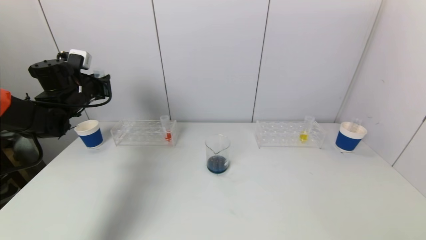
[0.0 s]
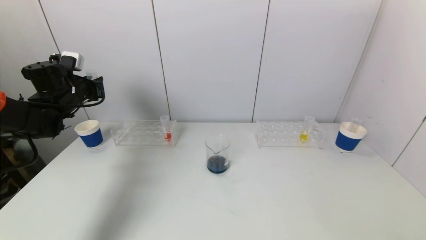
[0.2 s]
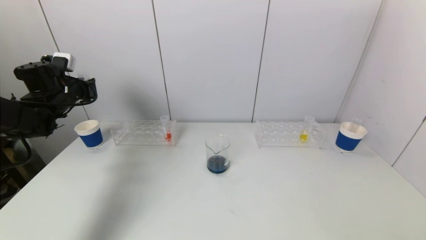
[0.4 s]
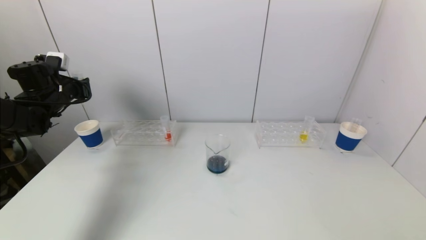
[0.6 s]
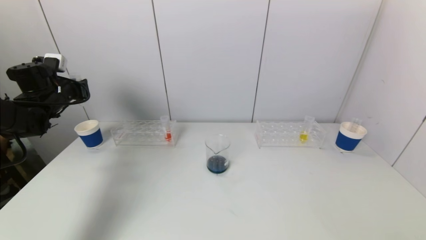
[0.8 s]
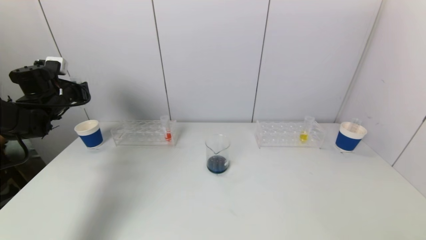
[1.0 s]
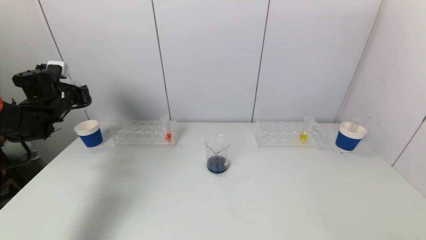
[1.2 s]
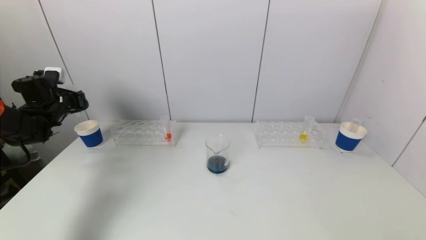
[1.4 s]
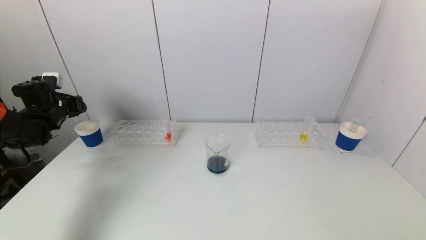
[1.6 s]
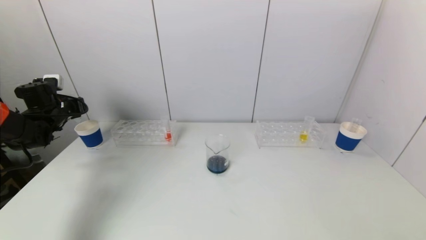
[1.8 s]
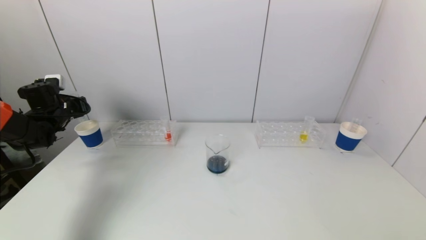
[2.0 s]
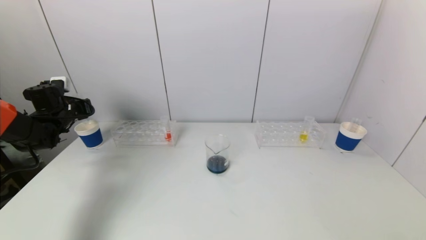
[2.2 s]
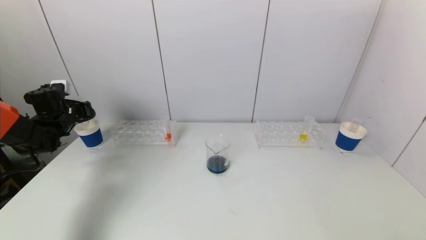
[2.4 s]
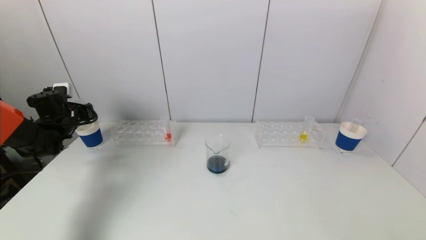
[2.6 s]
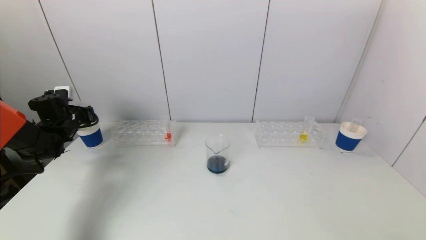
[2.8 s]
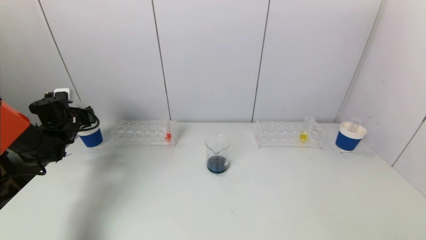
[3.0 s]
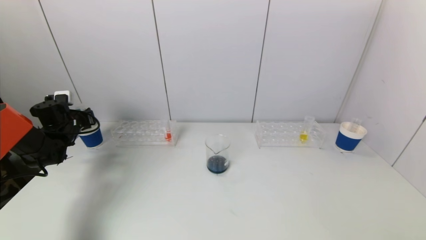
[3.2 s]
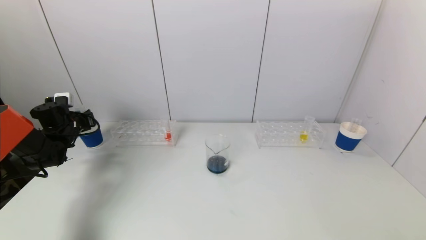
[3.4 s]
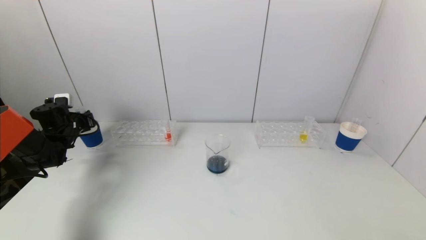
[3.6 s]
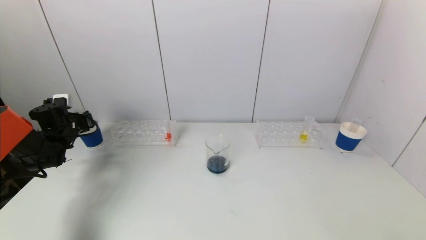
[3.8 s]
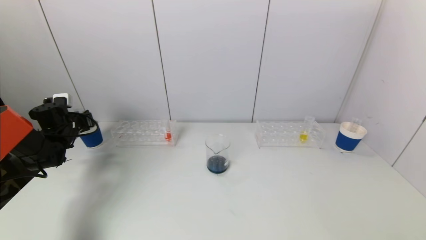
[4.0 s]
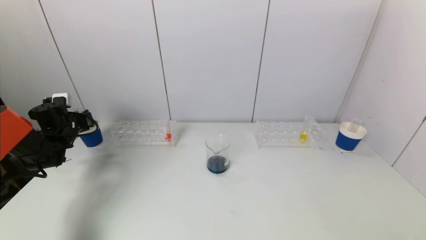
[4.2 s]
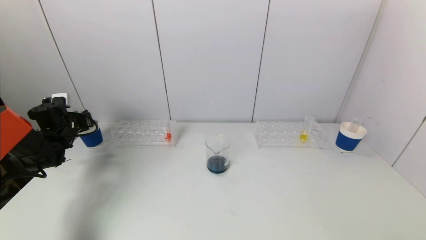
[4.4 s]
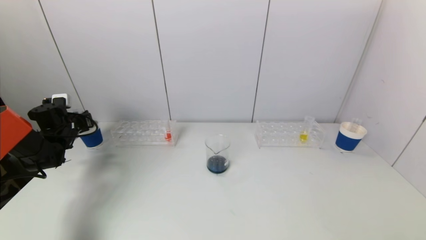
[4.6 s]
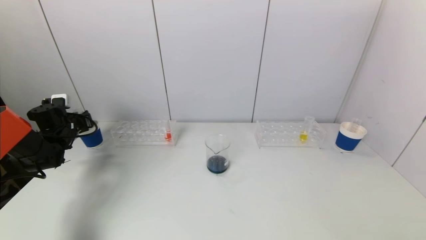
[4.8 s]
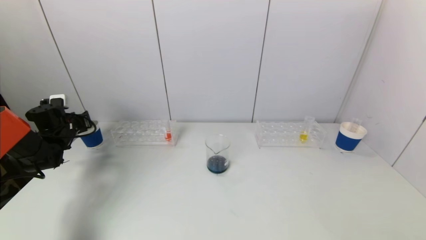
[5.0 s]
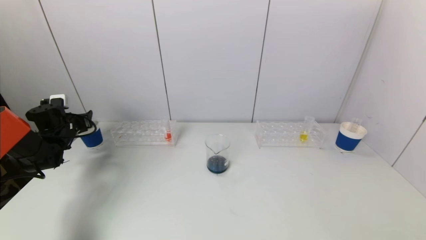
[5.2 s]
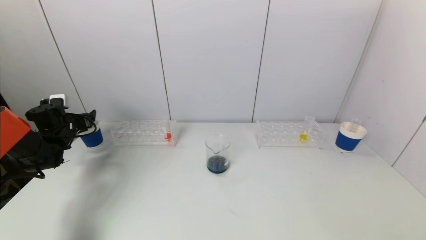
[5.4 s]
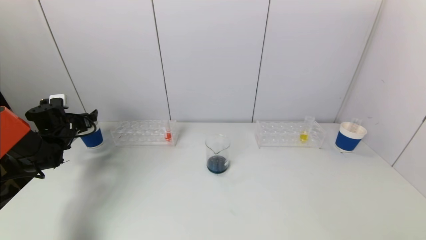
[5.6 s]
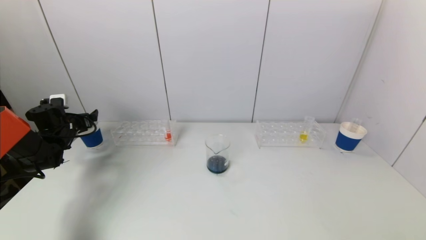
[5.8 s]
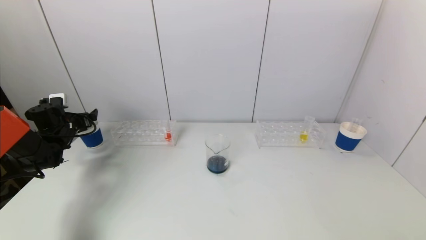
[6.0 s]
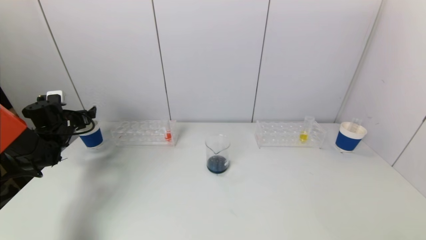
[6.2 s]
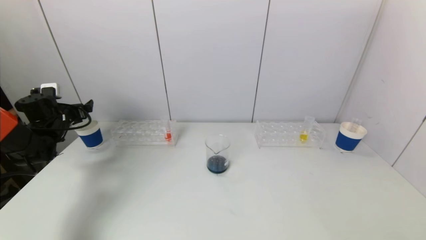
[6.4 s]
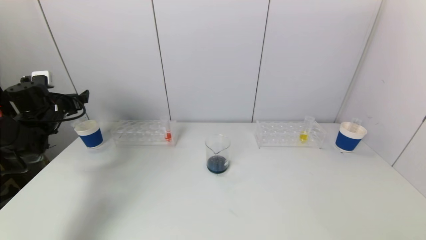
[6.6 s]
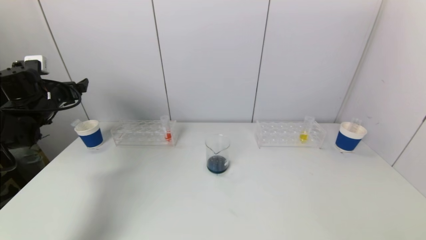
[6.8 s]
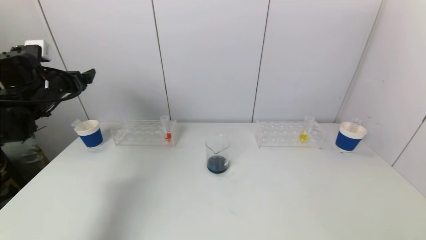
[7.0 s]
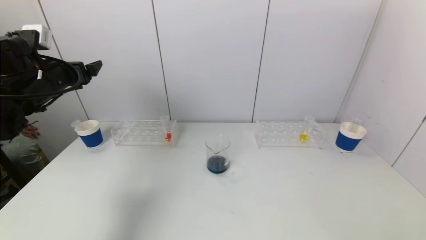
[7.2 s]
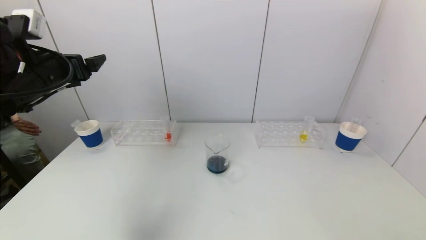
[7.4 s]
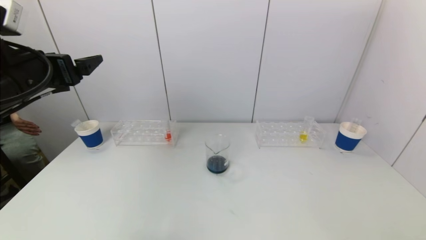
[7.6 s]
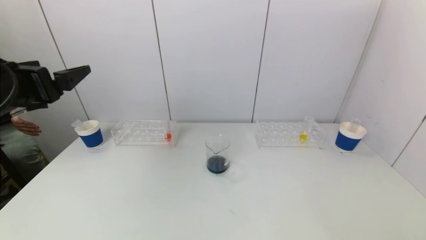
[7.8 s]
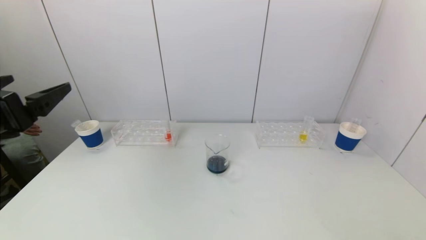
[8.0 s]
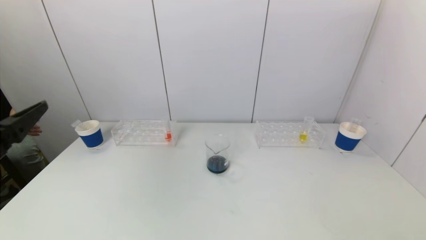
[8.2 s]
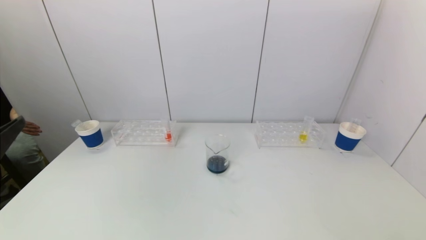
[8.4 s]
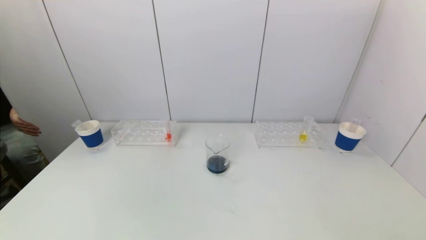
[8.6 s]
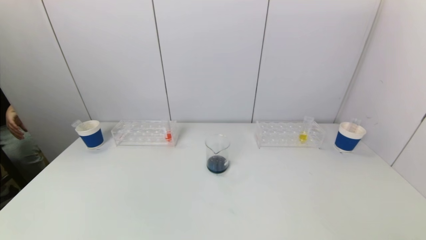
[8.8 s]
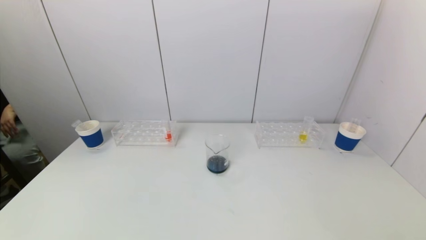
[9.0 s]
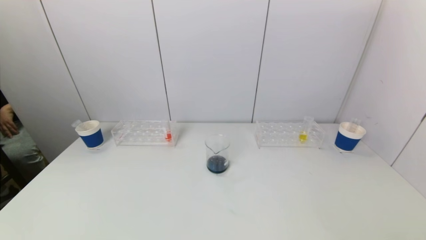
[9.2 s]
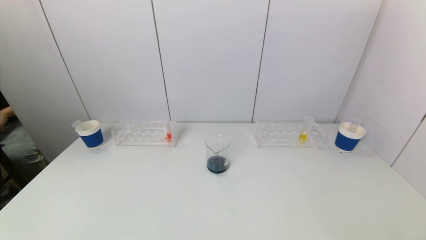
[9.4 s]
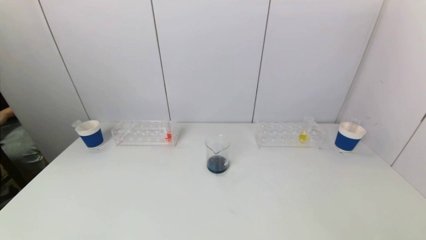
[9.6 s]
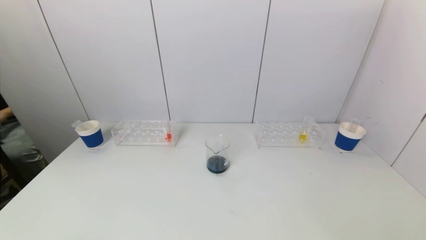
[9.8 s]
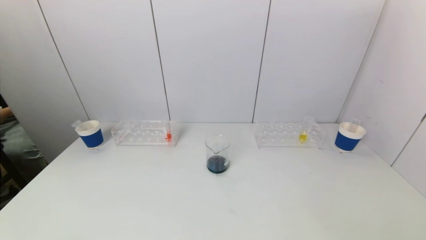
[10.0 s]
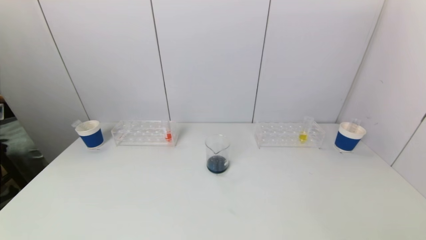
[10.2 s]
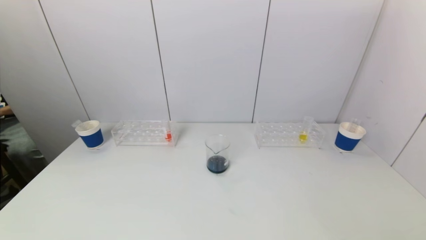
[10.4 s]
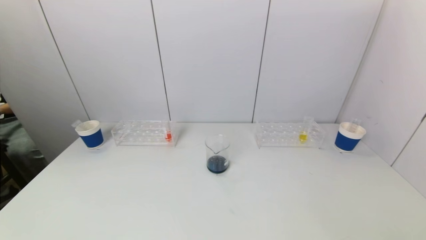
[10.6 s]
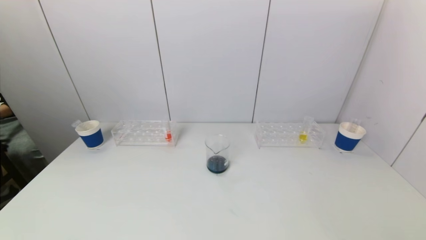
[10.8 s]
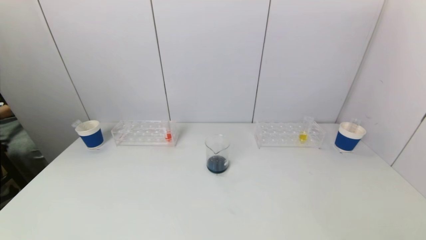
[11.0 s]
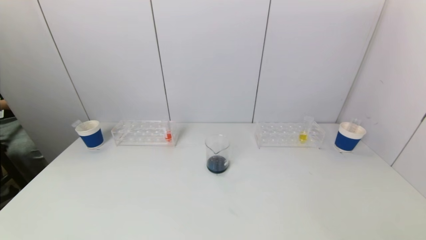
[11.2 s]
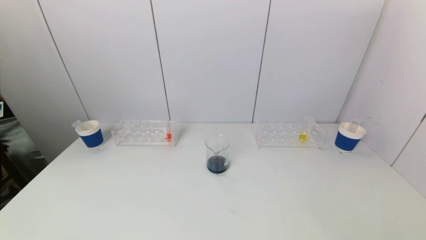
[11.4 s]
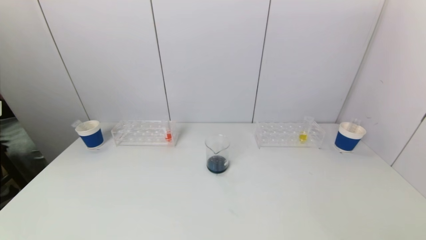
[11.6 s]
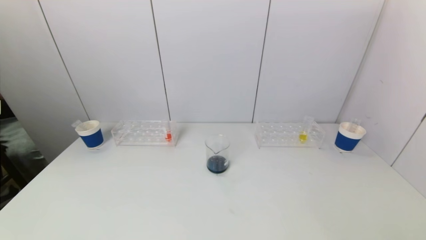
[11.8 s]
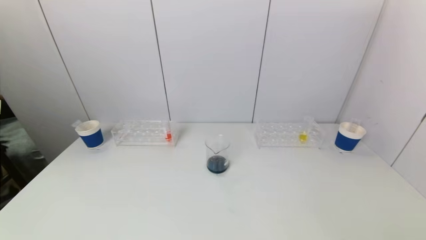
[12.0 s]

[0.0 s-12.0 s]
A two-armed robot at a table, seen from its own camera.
Task of the whole recording: pick up a test tube with pigment on left test tube rack and a test tube with pigment on right test tube rack by grippers and pour them into the beaker.
Step, 0.0 to 5.2 s: Place the test tube into the paper cup with the left gripper.
0.0 to 1.6 s: The left gripper is displaced to the left and downward by approximately 10 cm.
1.6 to 3.0 s: The left gripper changes place by about 5 cm.
3.0 to 4.4 s: The grippers make only small movements.
4.4 to 6.0 s: The left gripper opens.
6.0 to 7.6 s: The left gripper moves upward, backward and to the right, some 30 cm.
7.6 to 9.0 s: The left gripper travels backward by approximately 25 cm.
9.0 to 10.4 s: The left gripper moves downward, approximately 15 cm.

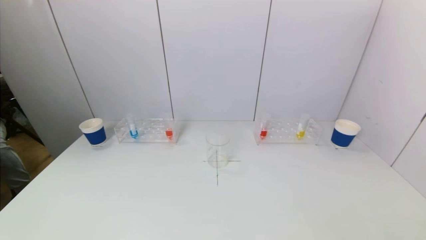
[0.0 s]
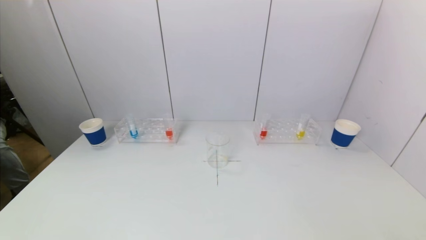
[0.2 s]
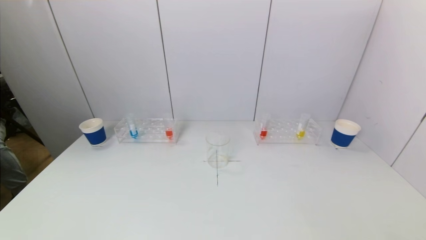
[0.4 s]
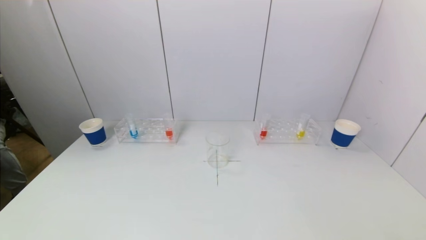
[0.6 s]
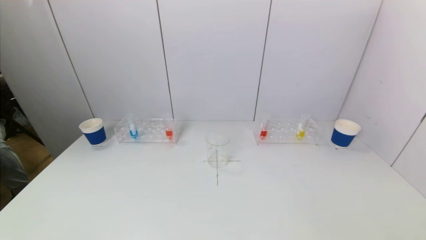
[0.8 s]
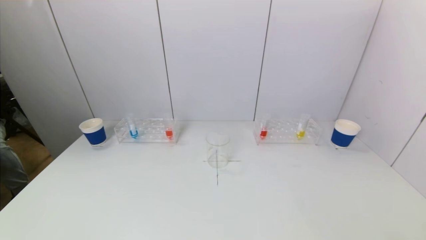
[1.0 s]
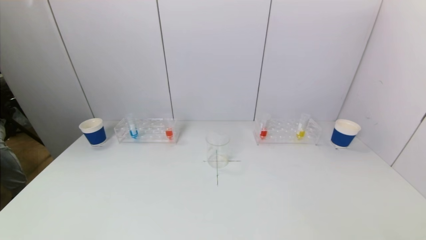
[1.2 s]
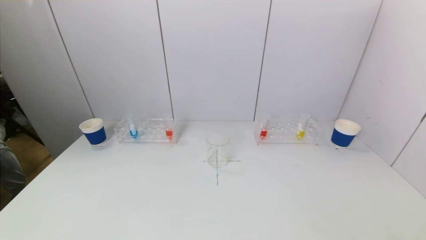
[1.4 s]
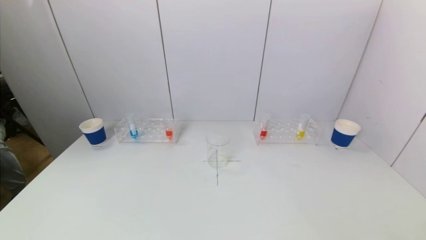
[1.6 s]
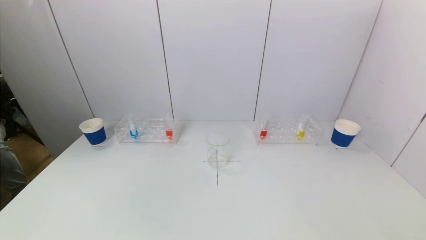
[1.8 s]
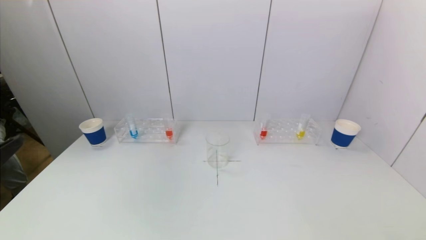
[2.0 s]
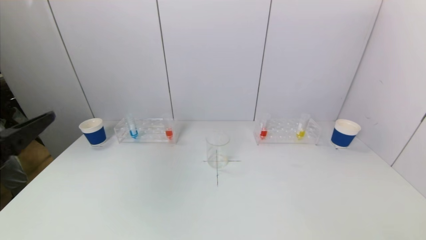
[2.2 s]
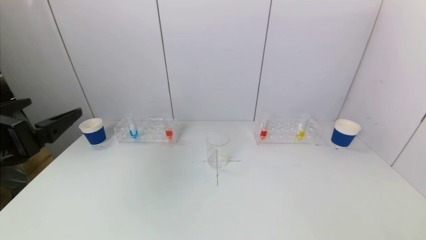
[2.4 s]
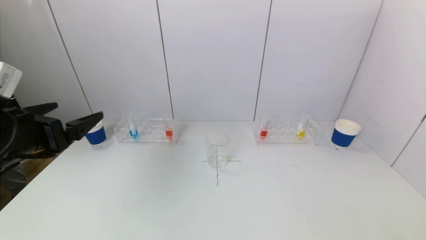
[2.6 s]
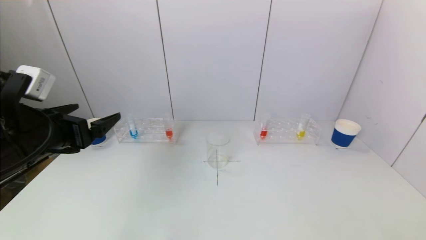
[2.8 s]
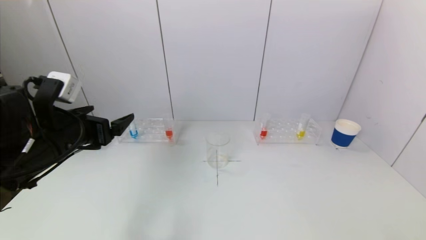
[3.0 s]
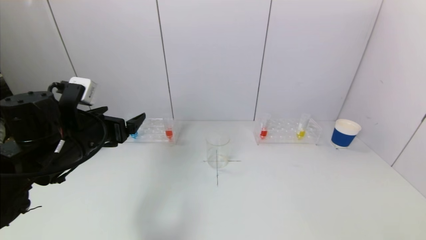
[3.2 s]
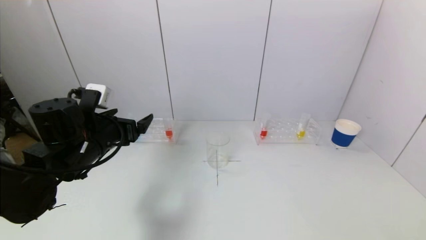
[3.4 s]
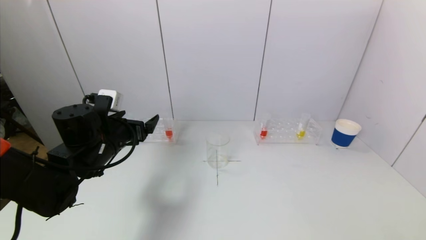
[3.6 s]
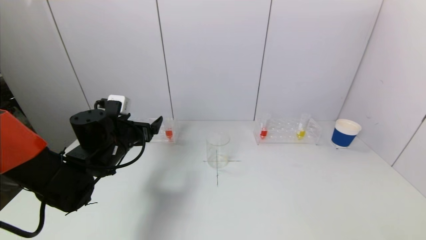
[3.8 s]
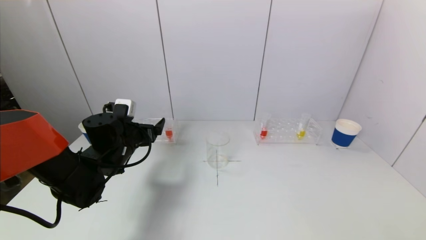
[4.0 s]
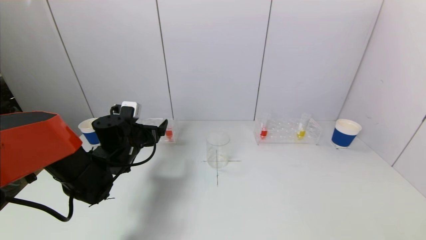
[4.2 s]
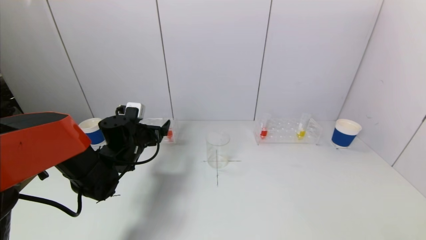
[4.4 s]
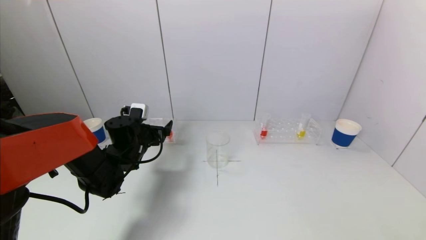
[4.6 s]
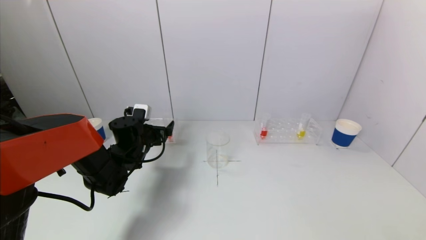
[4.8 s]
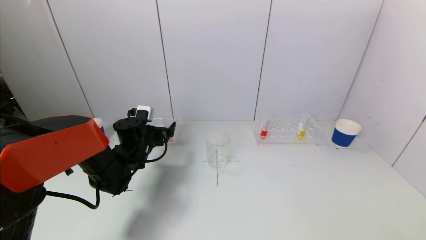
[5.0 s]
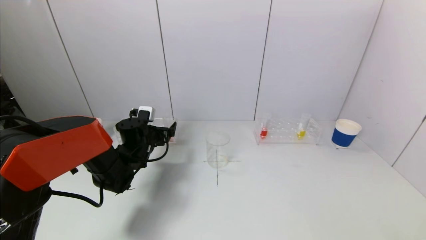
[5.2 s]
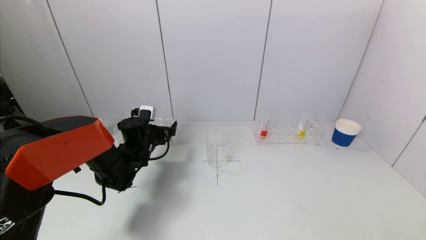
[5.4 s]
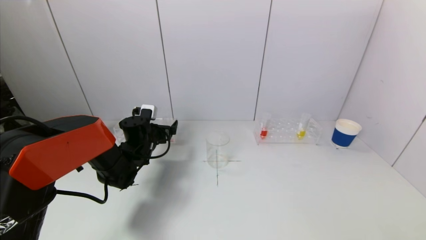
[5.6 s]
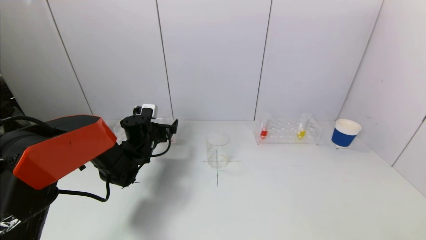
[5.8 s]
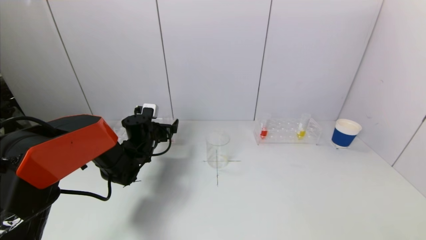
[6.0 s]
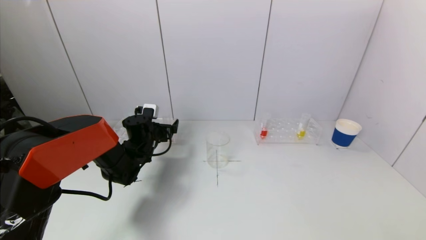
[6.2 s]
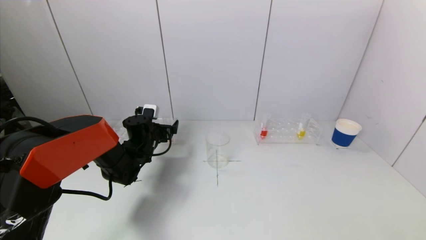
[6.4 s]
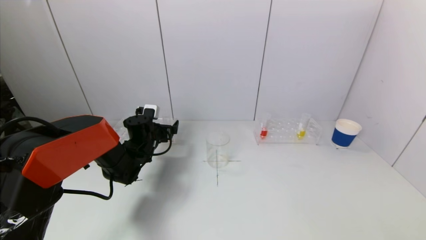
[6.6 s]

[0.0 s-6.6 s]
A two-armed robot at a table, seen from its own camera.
Task of the whole recording: pick up a test tube with pigment on left test tube rack and a test tube with pigment on right test tube rack by grippers and pour them into the beaker.
1.6 to 3.2 s: The left gripper goes roughly 30 cm forward.
3.2 to 5.0 s: The left gripper moves forward and downward, roughly 20 cm.
5.0 to 6.6 s: The grippers stay close to where they were, moving slightly.
